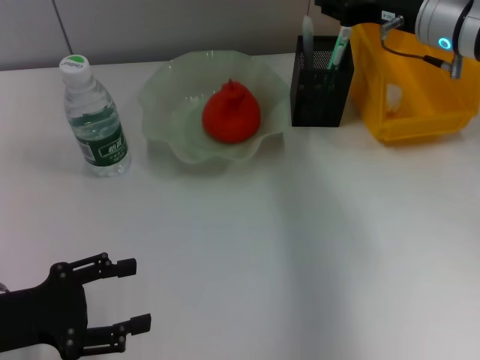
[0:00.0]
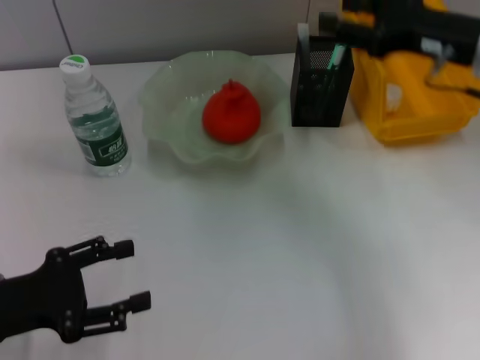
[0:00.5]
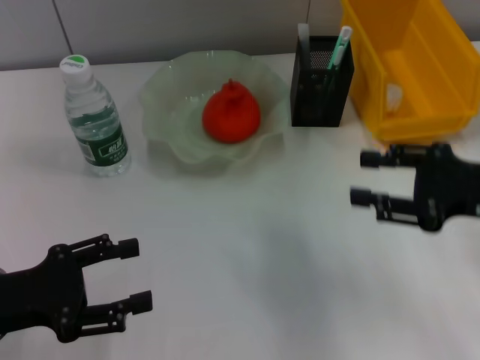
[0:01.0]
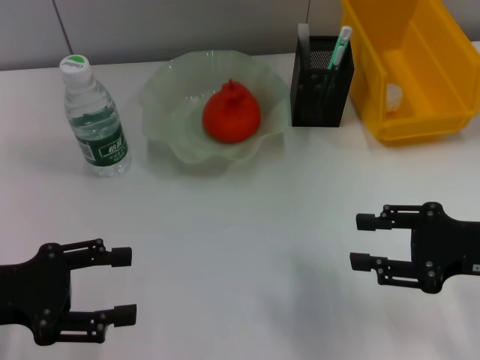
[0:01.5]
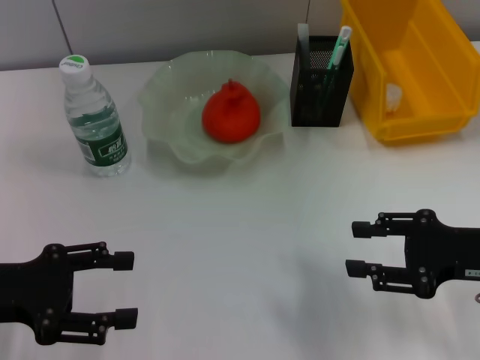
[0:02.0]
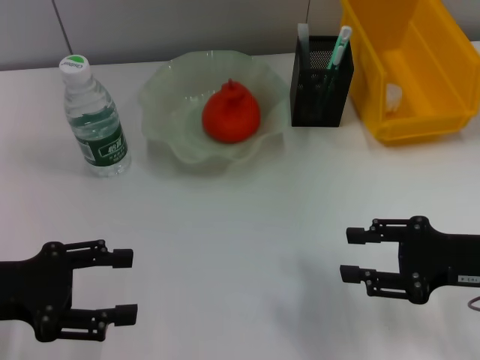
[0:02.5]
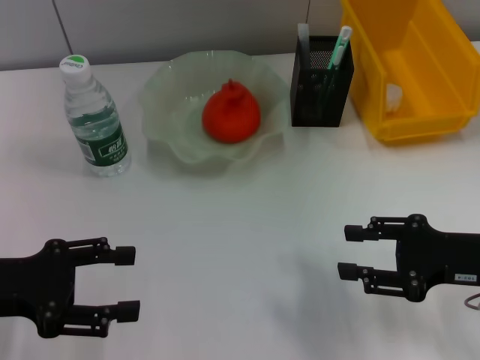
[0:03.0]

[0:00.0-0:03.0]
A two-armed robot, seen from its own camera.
0:00.0 to 0:01.5: The right gripper moves backward, about 20 cm, and opens up.
0:01.5 to 0:03.0: There are only small adjustments of the grippers.

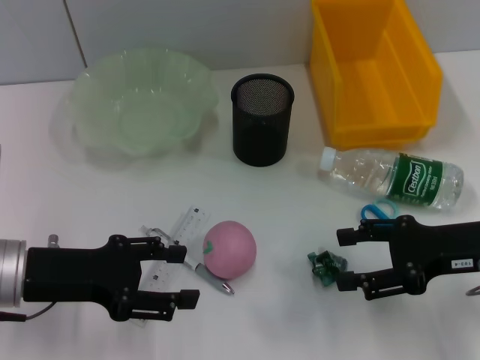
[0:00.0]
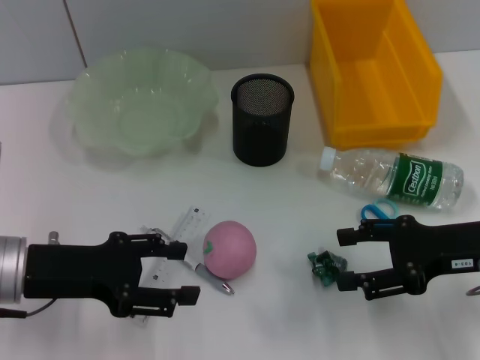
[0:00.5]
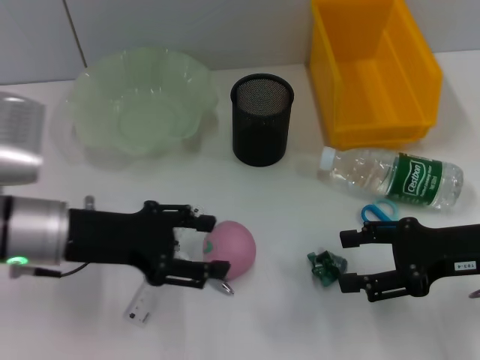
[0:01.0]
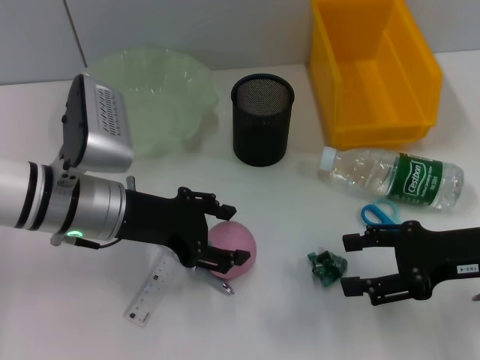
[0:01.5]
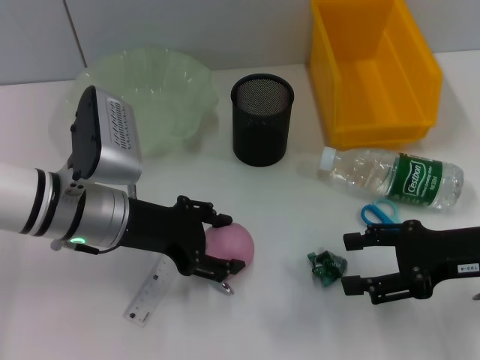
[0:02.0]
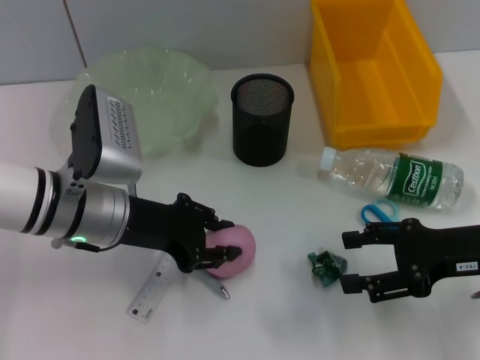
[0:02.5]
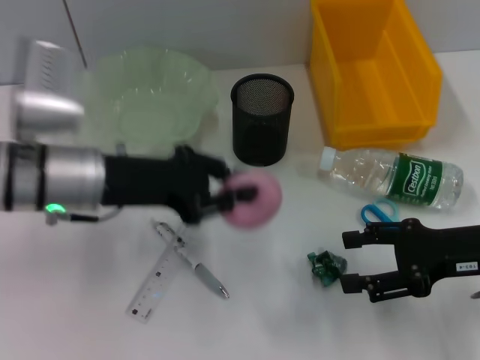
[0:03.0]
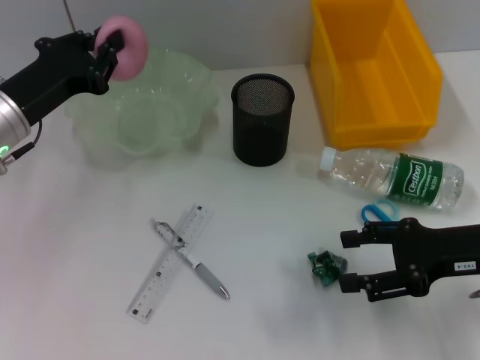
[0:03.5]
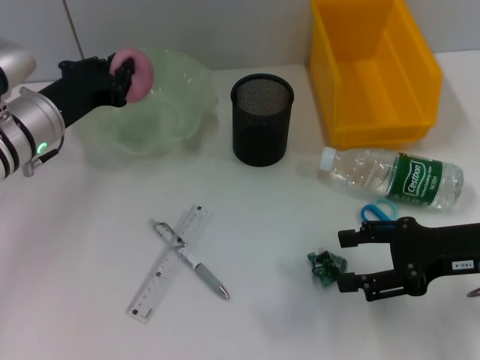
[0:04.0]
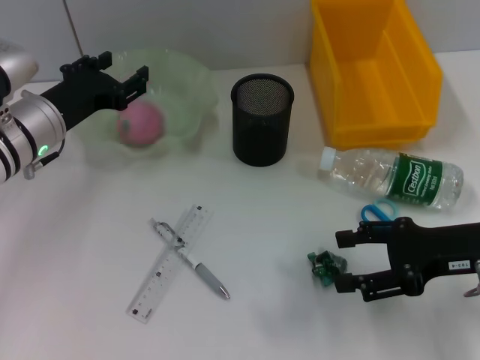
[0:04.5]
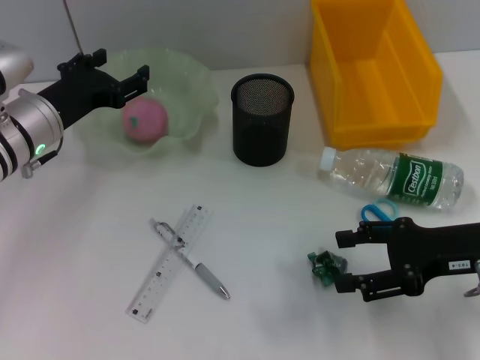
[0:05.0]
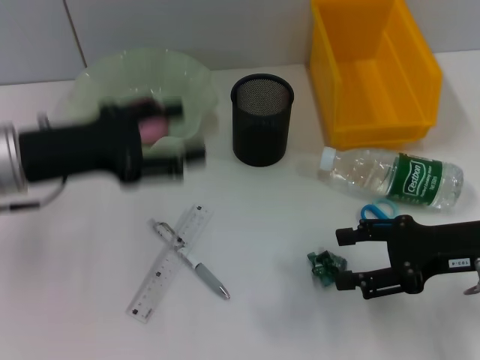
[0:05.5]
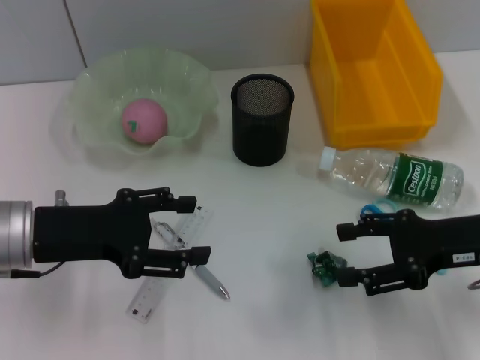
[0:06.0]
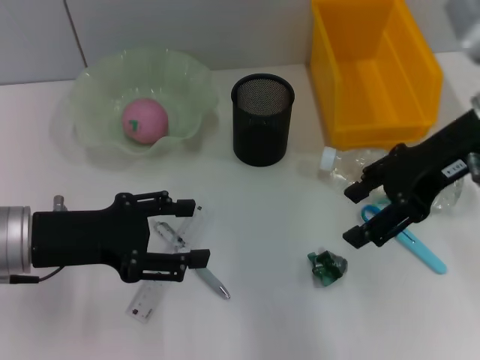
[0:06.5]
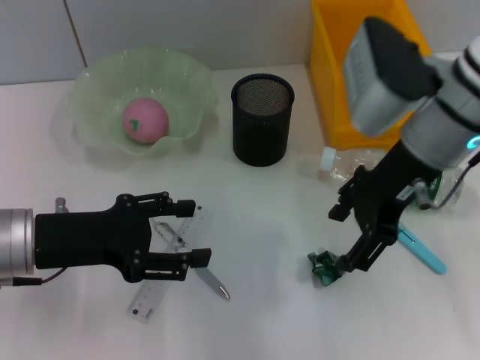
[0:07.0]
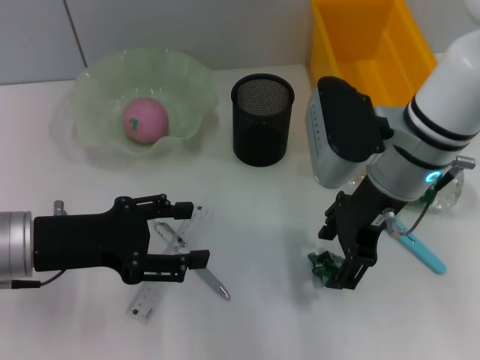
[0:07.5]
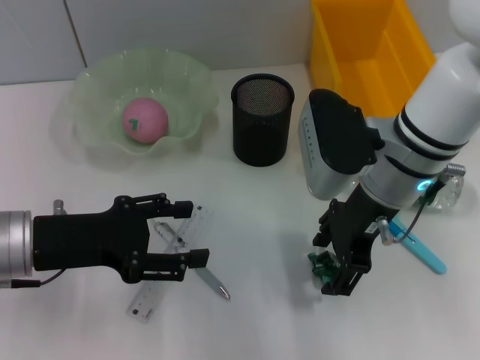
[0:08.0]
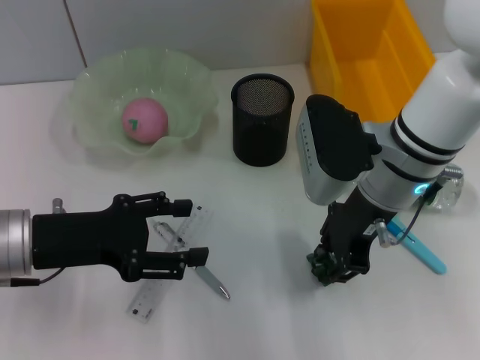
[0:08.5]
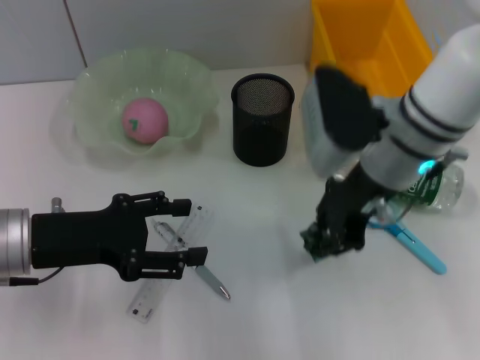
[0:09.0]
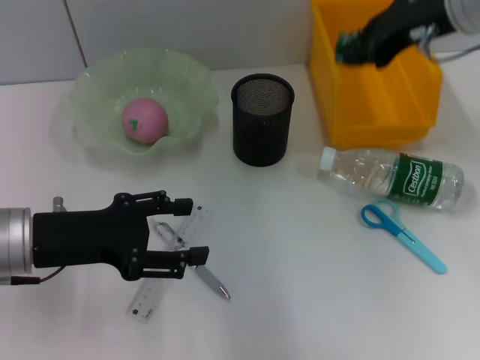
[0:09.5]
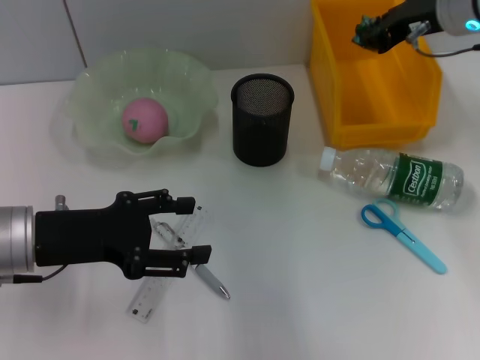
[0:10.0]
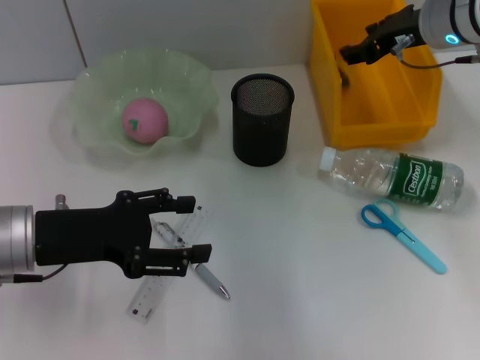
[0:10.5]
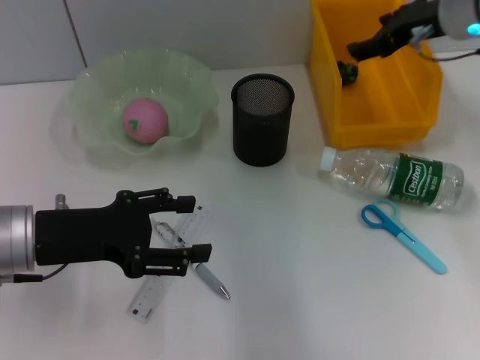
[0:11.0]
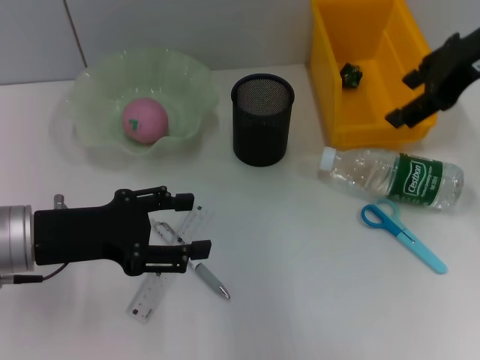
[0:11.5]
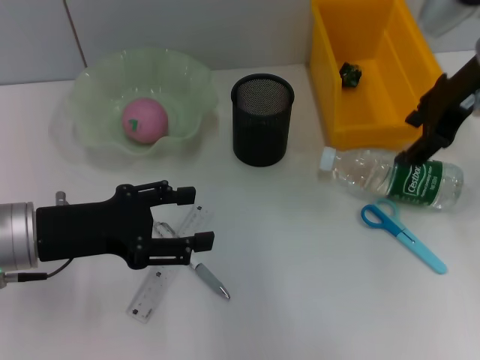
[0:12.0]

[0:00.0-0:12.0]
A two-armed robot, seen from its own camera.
Step, 0:00.0 to 0:02.5: Grab the peach with the left hand.
Step, 0:03.0 to 0:04.5: Place the peach into the fruit bowl with the left hand.
Step, 0:05.0 to 0:08.5: Grab the plastic with the right hand.
Step, 0:09.0 to 0:10.5: Place the plastic into the trash can with the right hand.
0:00.0 to 0:02.0: The left gripper is displaced to the right and forward by roughly 10 cm.
0:02.0 to 0:04.0: The left gripper shifts about 10 cm forward and to the left, and closes up.
0:04.0 to 0:06.0: The left gripper is displaced backward by about 10 cm, and opens its fingers.
0:06.0 to 0:08.0: The right gripper shifts roughly 15 cm to the left and forward.
0:08.0 to 0:10.0: The right gripper heads forward, to the right and upward, covering approximately 15 cm, and closes up.
0:10.0 to 0:12.0: The right gripper opens.

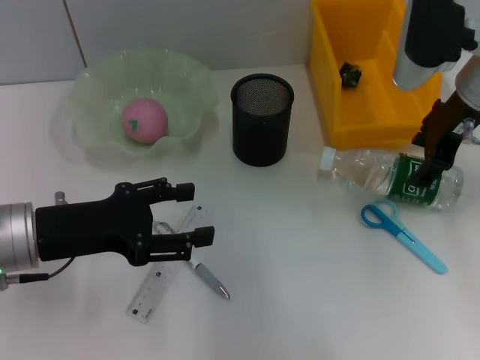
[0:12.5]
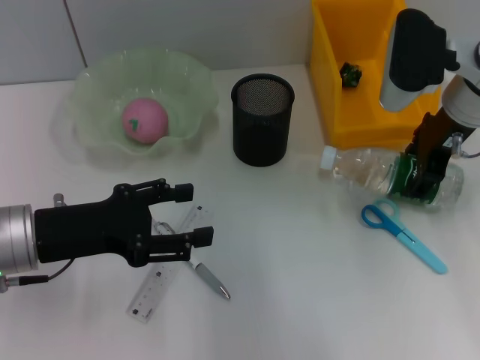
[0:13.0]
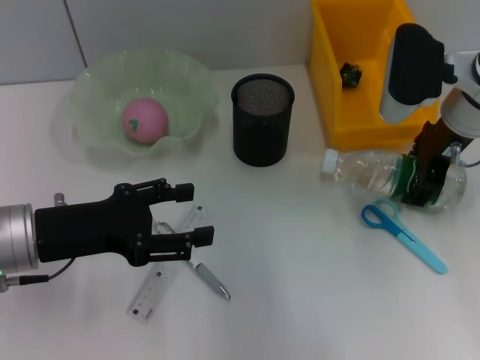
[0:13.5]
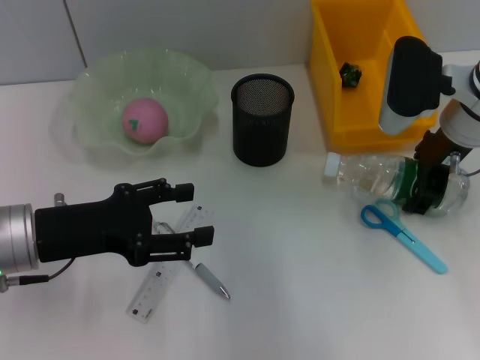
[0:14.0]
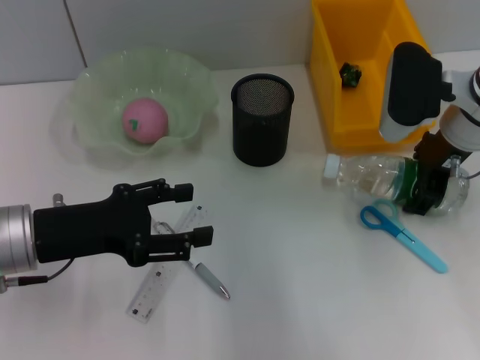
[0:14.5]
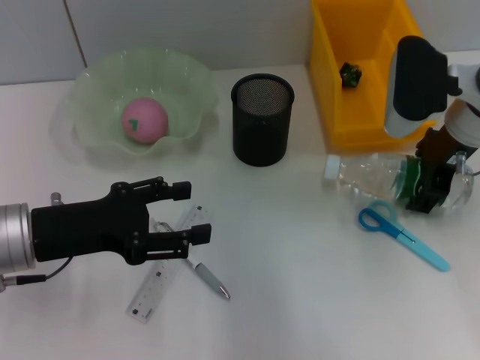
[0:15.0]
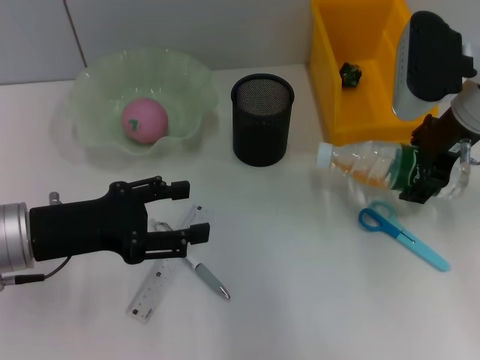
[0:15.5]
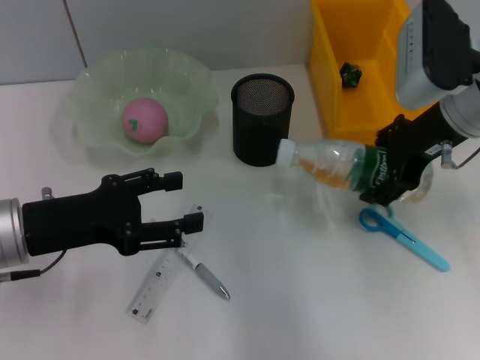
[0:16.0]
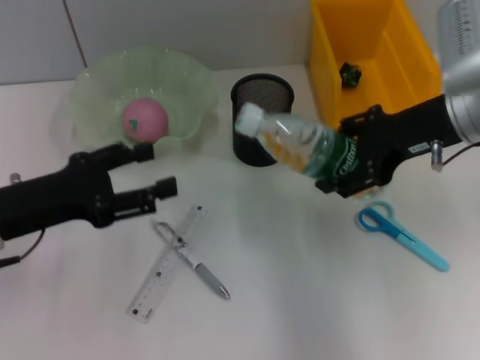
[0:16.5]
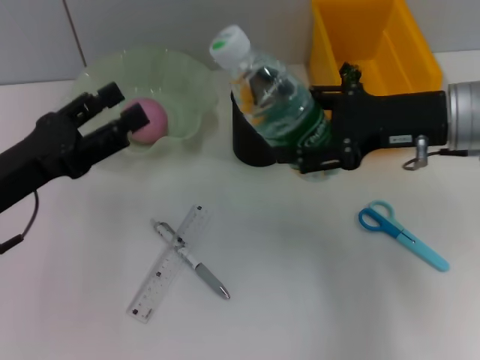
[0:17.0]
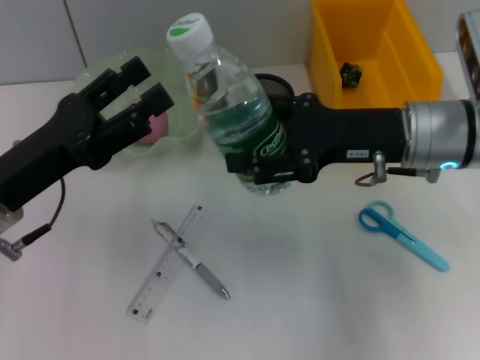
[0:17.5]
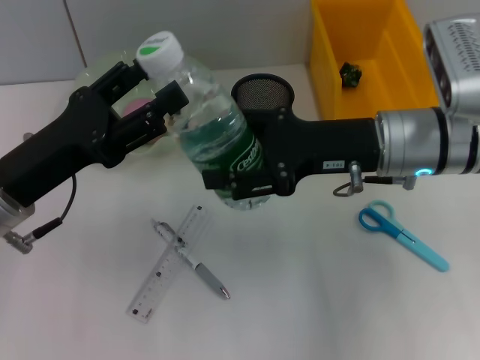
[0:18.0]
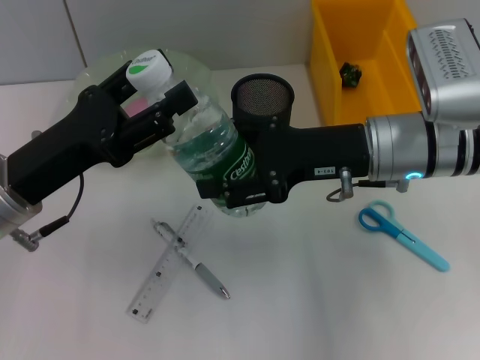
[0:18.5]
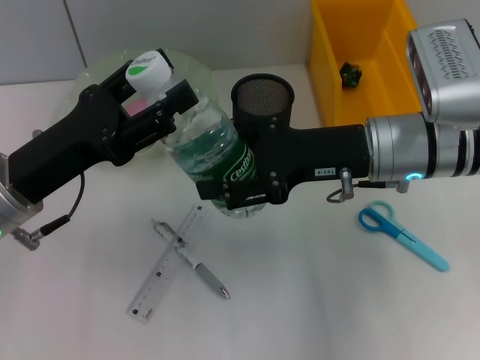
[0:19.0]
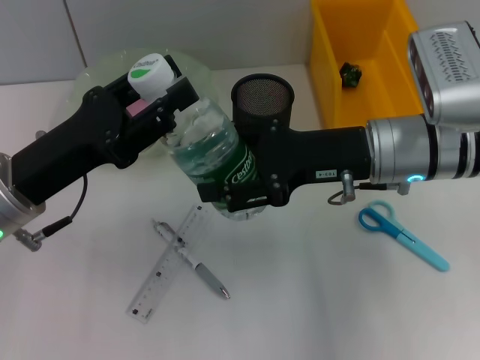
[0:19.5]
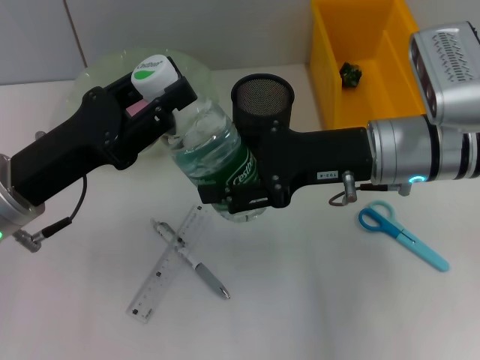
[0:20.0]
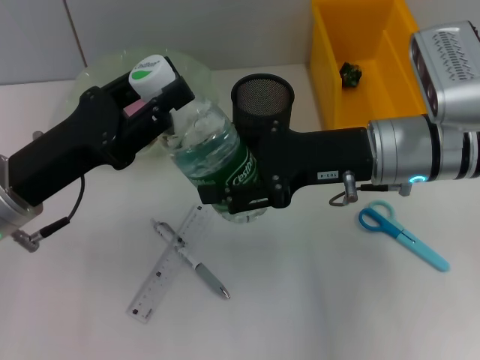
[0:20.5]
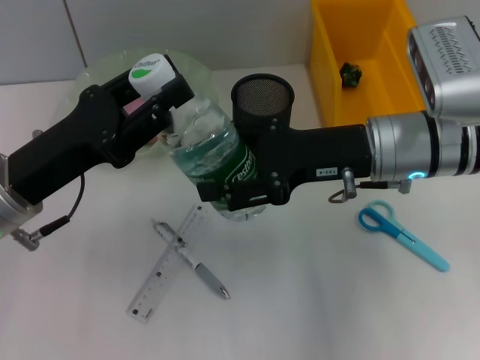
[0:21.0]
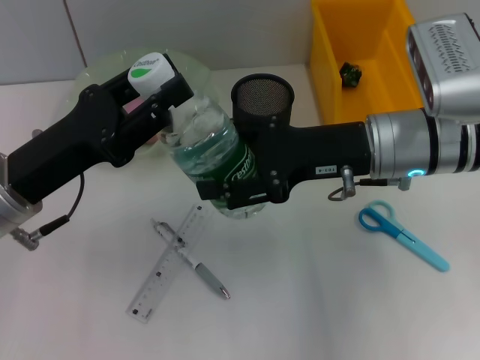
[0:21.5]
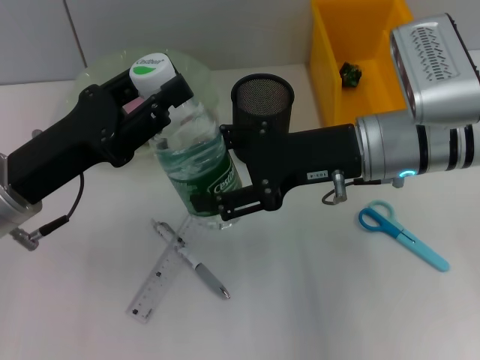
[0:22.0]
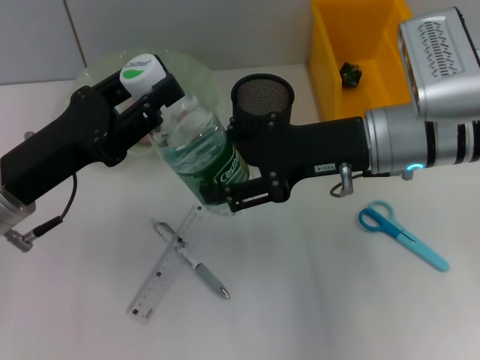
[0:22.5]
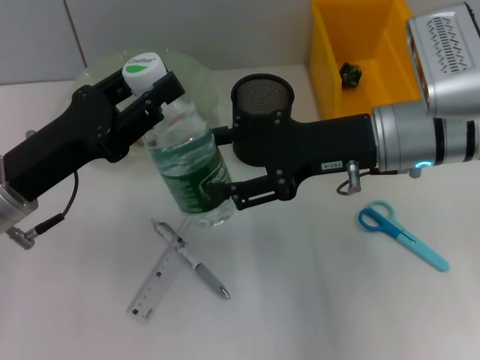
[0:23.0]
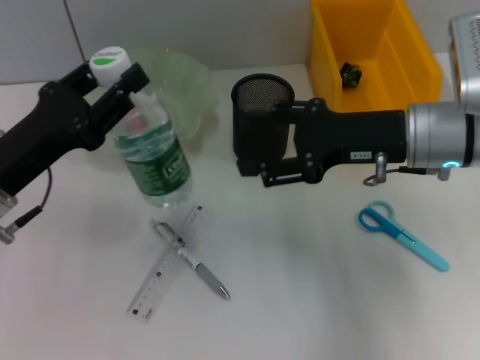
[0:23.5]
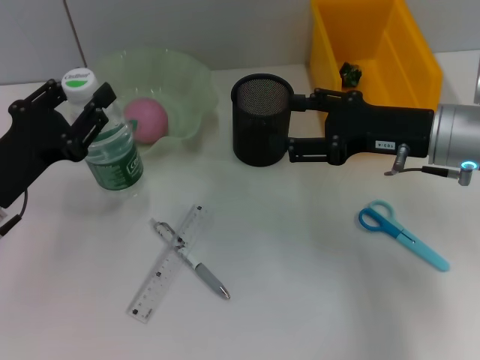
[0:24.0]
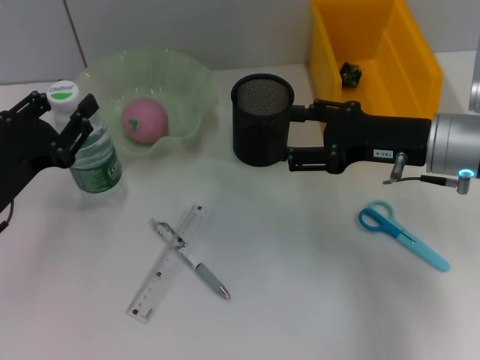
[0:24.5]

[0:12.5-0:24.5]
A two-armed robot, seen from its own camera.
Step, 0:16.0 to 0:22.5: Pass the water bottle from the right hand to the left hand.
0:12.5 to 0:14.5: The grippers make only small movements.
0:14.5 to 0:16.5: The right gripper ends up roughly 5 cm from where it was.
0:16.5 to 0:18.5: The right gripper is displaced to the left by some 5 cm.
0:18.5 to 0:20.5: The left gripper closes its fingers.
0:20.5 to 0:22.5: There are only small adjustments of the grippers.
0:22.5 to 0:24.5: The left gripper changes place by about 5 cm; the right gripper is displaced to the right by some 5 cm.
